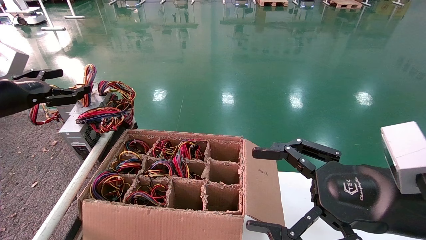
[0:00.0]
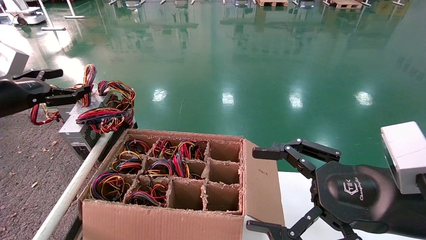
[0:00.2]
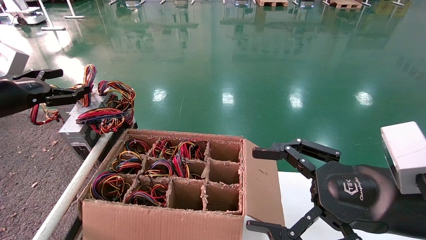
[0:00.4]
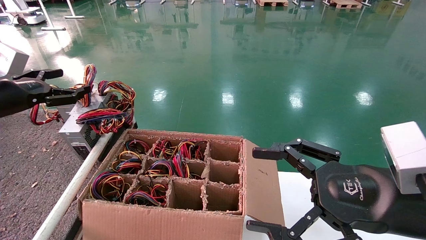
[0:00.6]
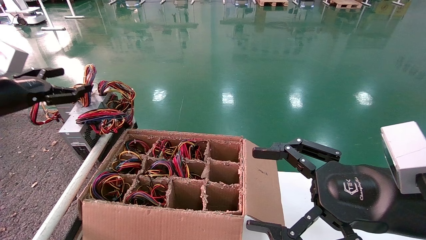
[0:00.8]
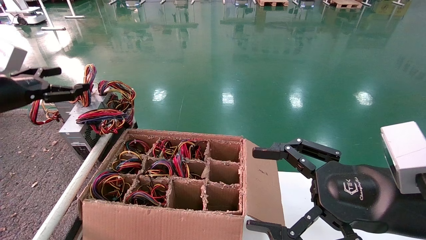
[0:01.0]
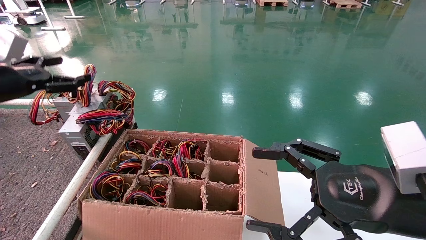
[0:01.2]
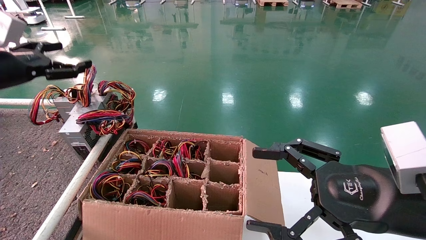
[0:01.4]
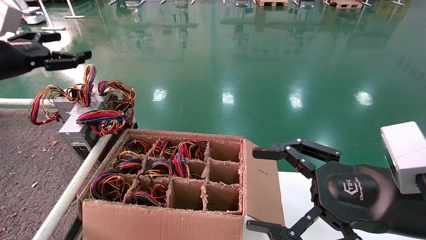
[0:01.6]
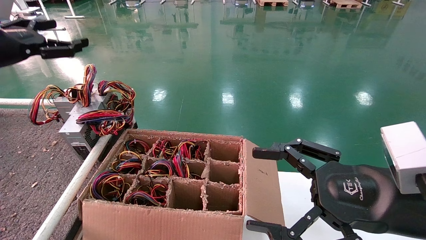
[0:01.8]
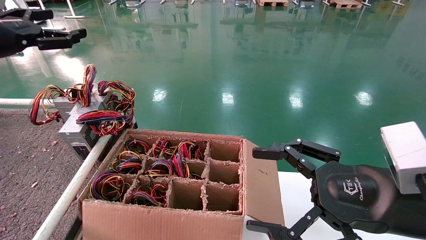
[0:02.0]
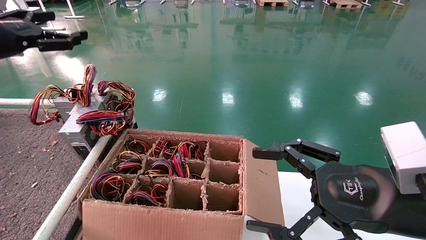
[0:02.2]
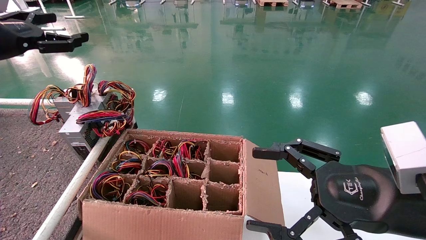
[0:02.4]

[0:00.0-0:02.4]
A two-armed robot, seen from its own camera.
0:00.0 to 0:01.2: The grippers make only small movements.
0:01.2 to 0:02.4: The left gripper travels upward by approximately 5 cm.
